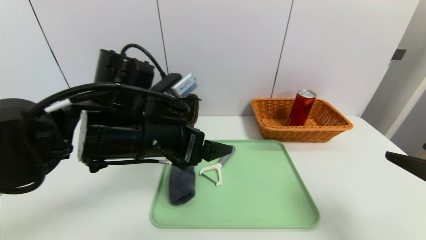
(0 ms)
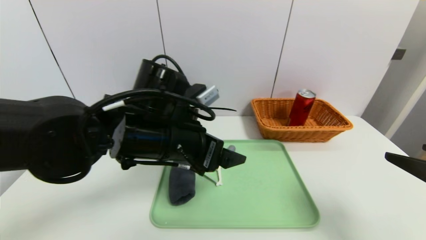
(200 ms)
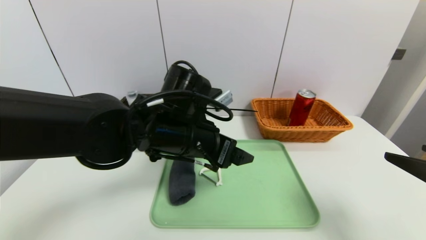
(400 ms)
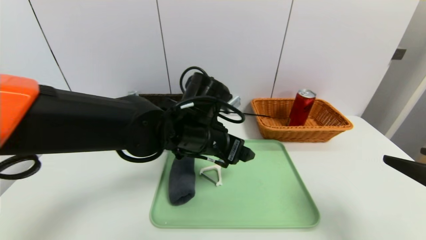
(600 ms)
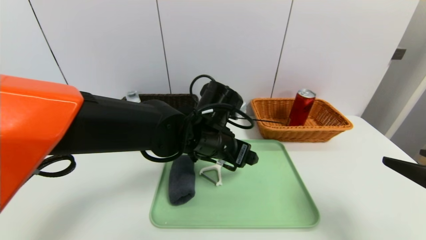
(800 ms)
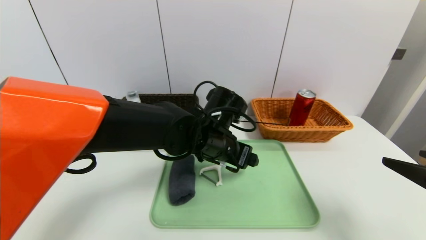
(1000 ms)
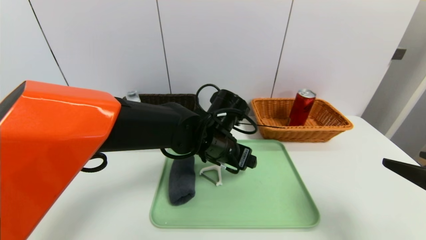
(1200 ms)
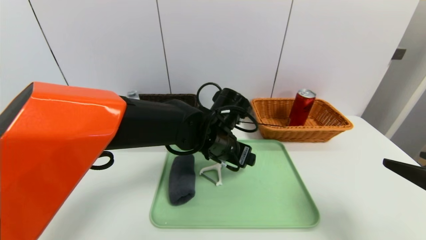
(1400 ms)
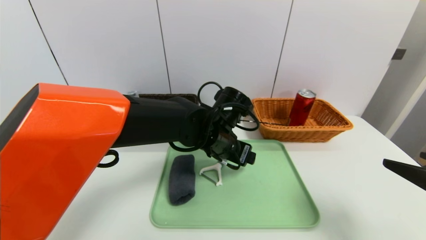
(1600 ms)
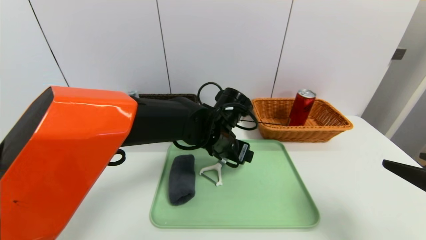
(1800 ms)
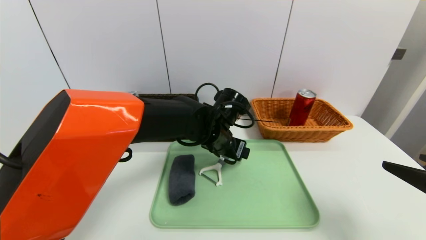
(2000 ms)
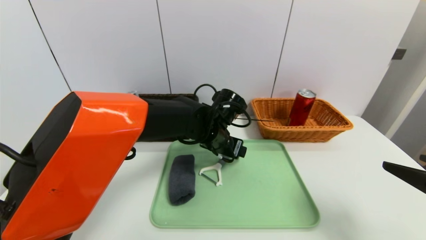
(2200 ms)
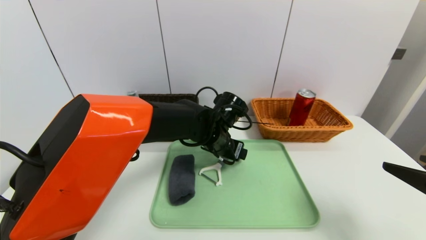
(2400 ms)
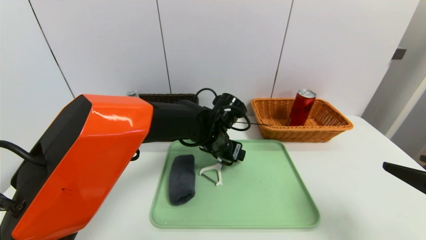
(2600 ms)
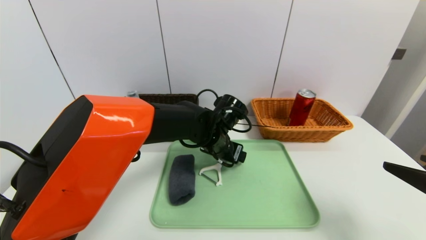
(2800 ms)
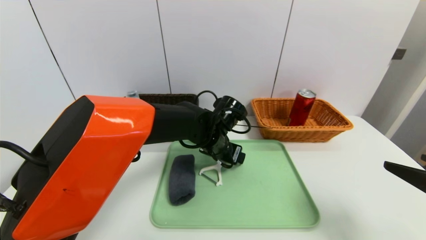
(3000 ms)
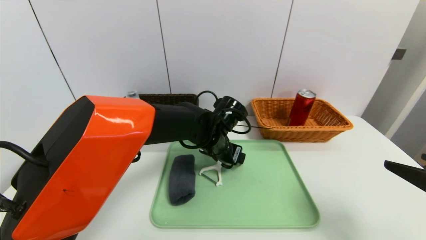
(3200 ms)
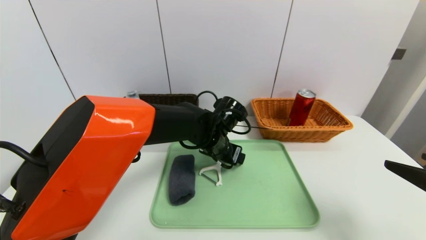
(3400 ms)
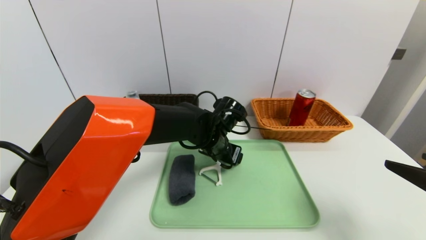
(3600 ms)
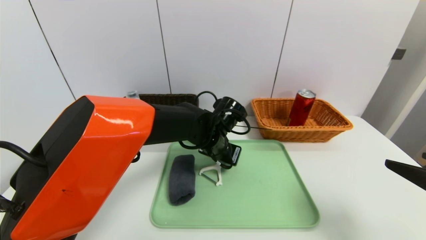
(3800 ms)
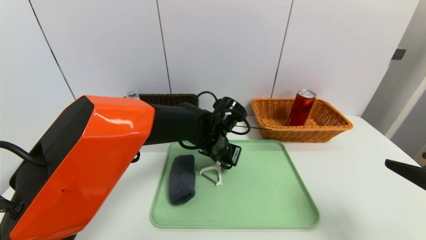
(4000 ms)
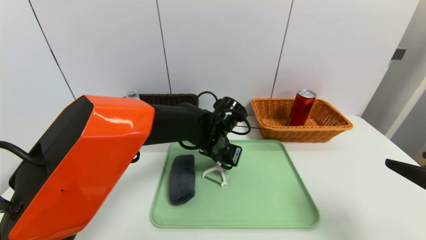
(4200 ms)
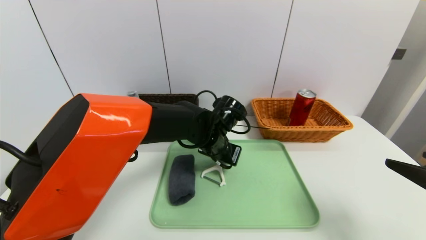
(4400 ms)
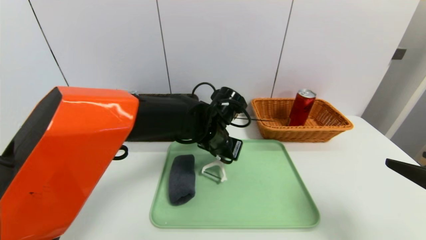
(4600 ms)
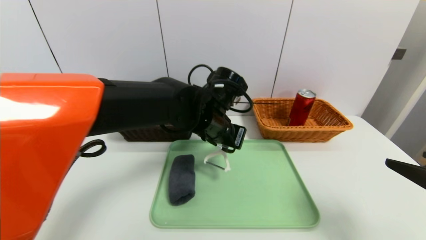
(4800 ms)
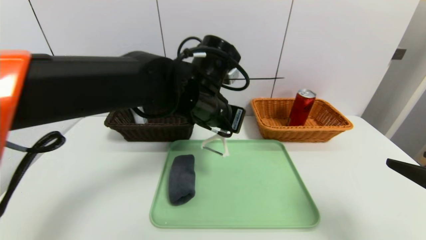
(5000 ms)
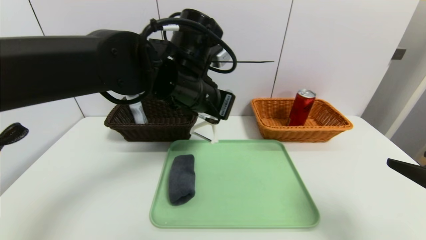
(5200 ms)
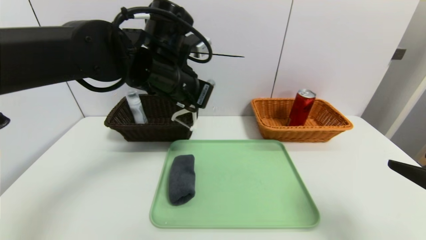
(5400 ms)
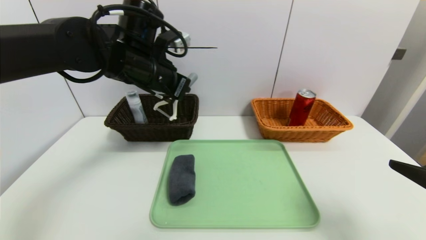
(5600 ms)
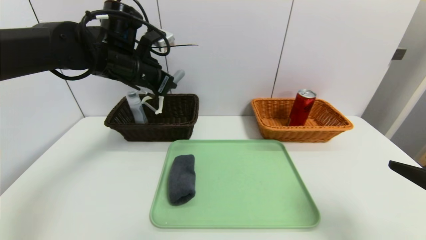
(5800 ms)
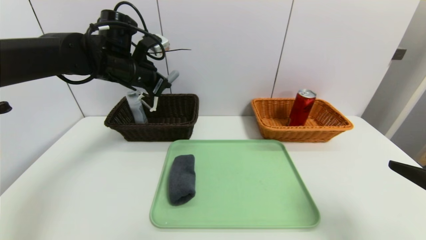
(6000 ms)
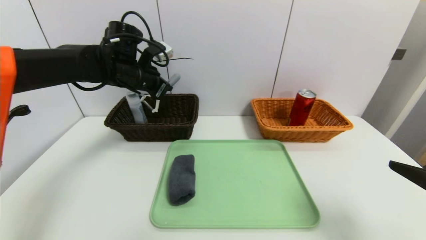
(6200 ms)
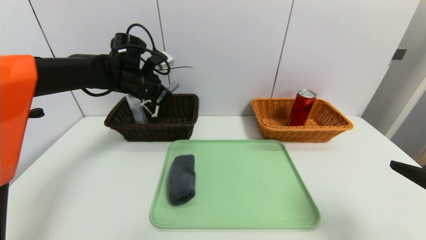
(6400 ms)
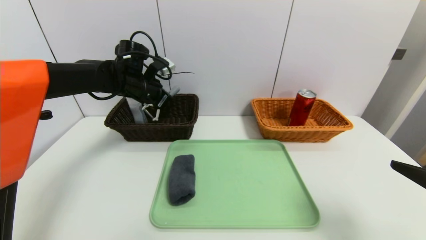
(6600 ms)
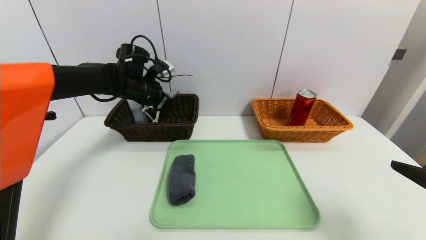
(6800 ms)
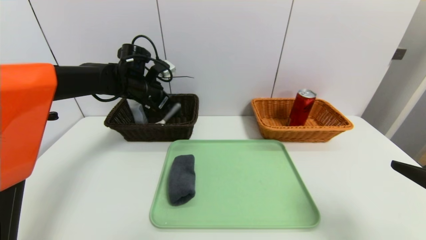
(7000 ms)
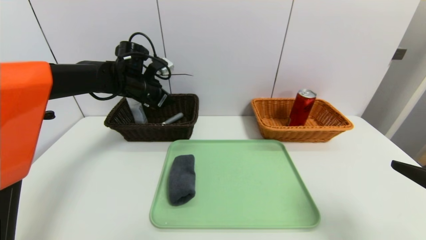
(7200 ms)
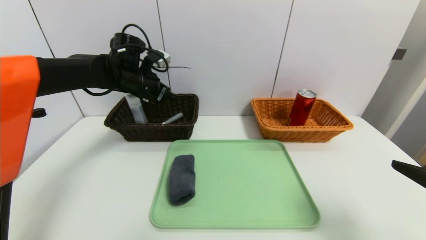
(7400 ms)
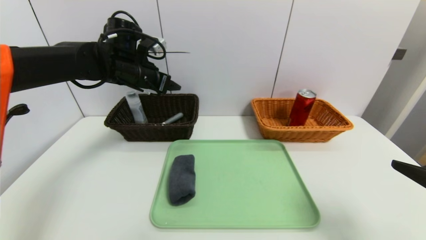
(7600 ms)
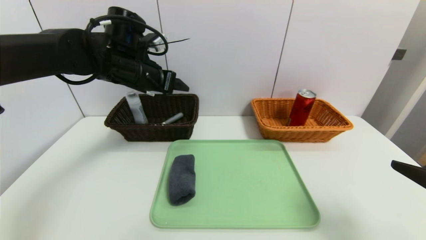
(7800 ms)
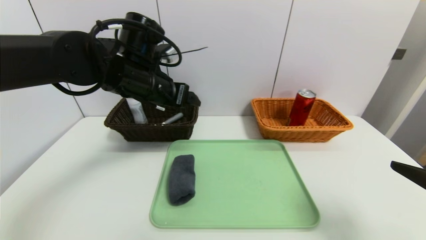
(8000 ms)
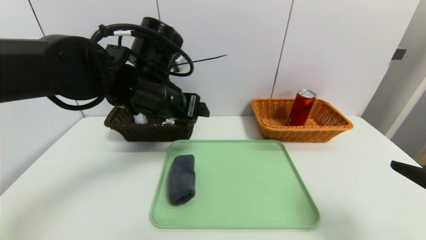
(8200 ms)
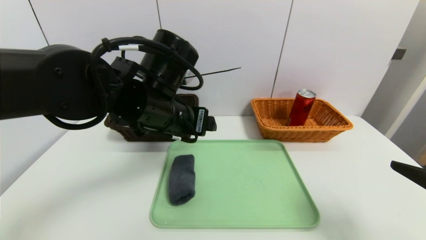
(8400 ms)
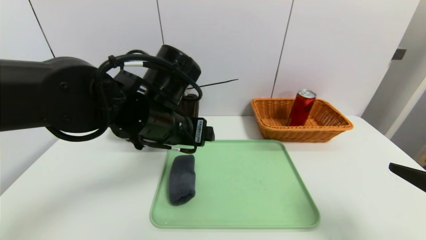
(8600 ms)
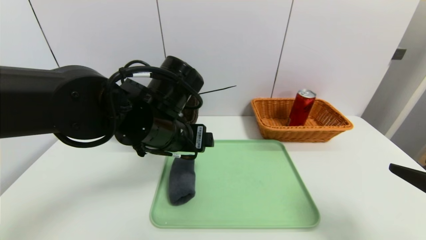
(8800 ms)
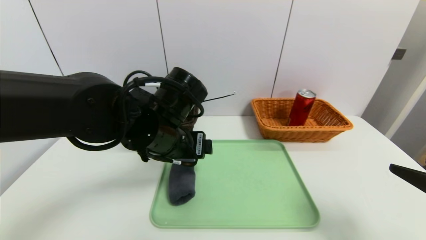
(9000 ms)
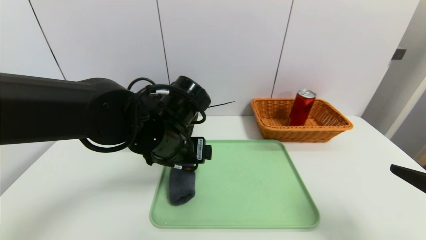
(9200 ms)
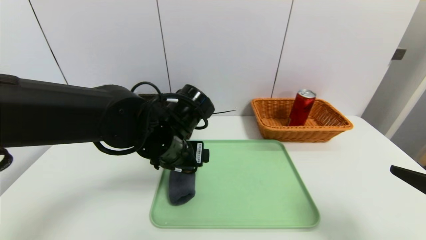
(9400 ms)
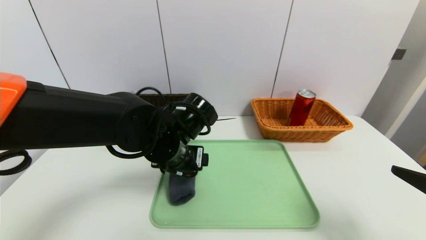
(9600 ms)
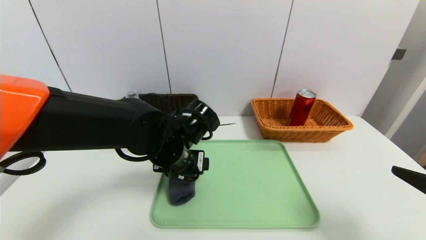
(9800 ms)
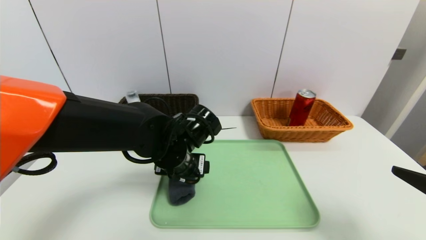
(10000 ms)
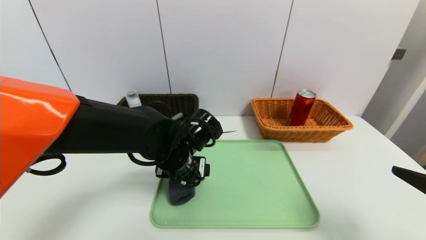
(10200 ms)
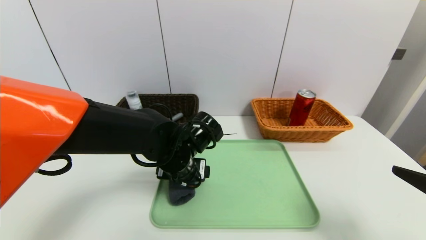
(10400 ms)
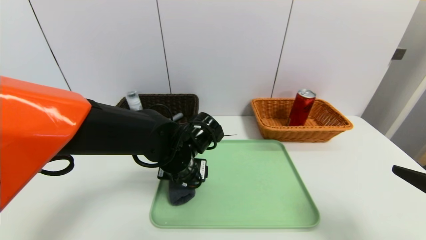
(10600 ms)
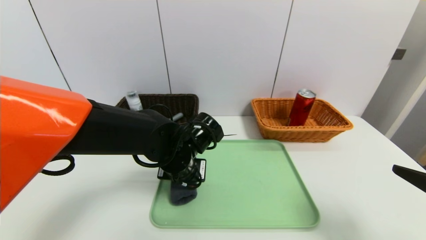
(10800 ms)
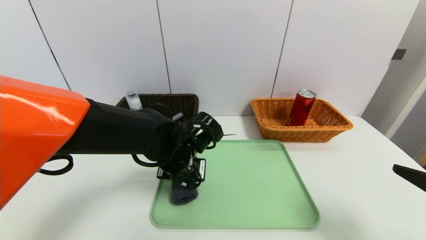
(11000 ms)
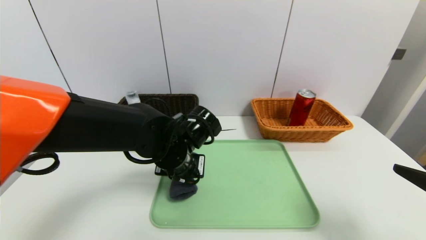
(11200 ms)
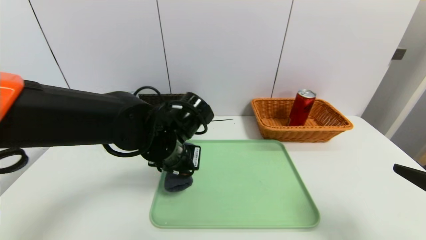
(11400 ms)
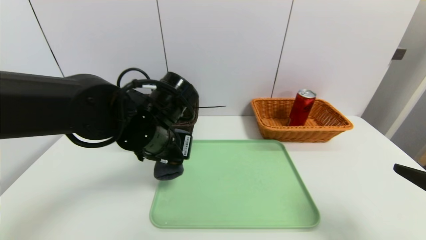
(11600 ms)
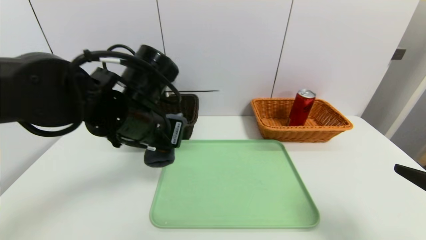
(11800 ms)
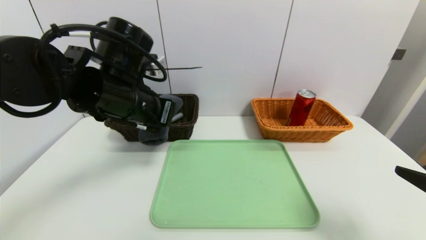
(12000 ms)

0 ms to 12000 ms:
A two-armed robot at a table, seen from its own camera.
Task of the whole recording: place the food in the right basket with the right gripper, and place the non food items in the left basket with the left gripper.
Step, 0 ms to 7400 ms: Grasp the peeler and put it in the left basket.
0 ms to 1600 ms: The left gripper travels to the right, forward and downward by roughly 15 cm.
1600 ms to 3000 ms: The grippers move only a little.
3000 ms to 4400 ms: The left gripper closes.
4400 ms to 6000 ms: The left gripper goes about 25 cm to the left and upward.
6000 ms to 7600 ms: The left gripper opens its fingers.
7600 ms to 9000 ms: The left gripper is displaced backward, to the right and downward by some 20 cm.
9000 ms to 10400 ms: The left gripper travels downward by roughly 10 cm.
10400 ms to 12000 ms: The left gripper heads upward and to the left, covering about 15 cm, and closes its fingers.

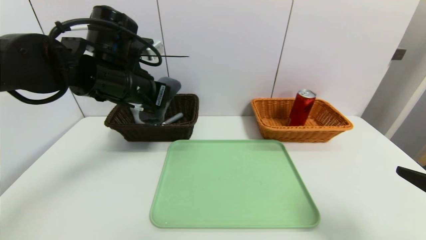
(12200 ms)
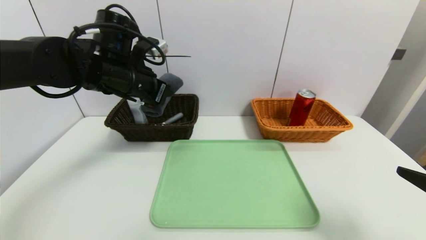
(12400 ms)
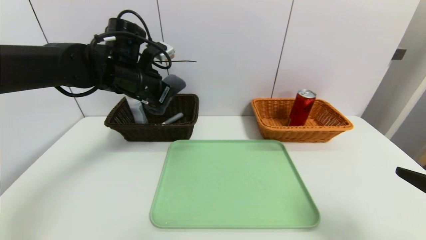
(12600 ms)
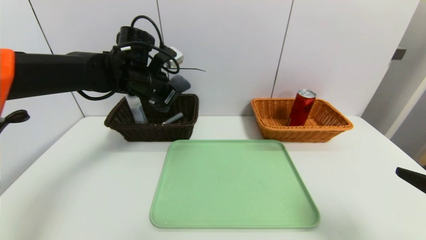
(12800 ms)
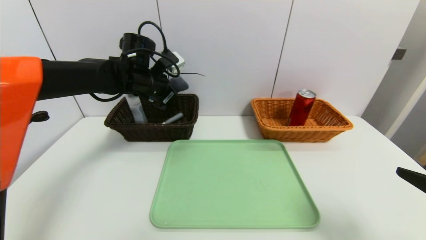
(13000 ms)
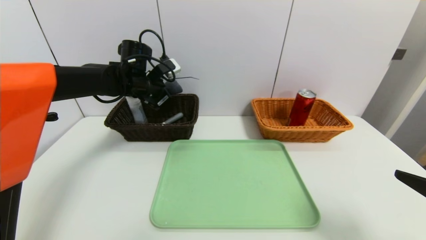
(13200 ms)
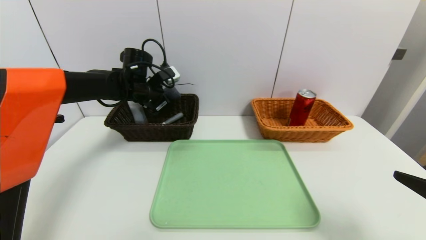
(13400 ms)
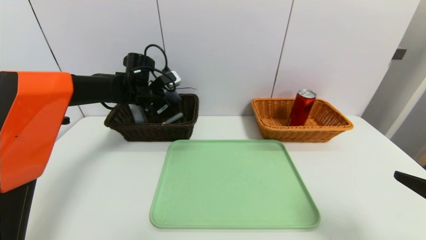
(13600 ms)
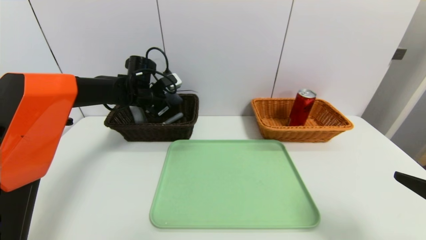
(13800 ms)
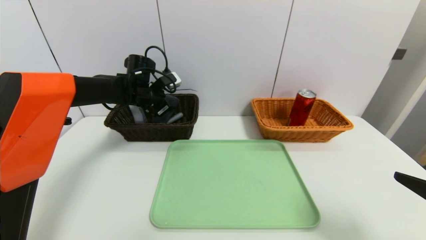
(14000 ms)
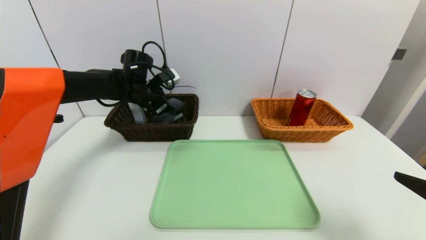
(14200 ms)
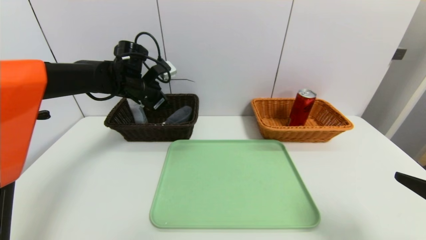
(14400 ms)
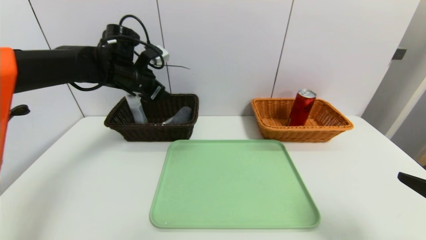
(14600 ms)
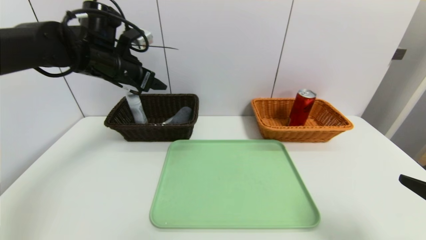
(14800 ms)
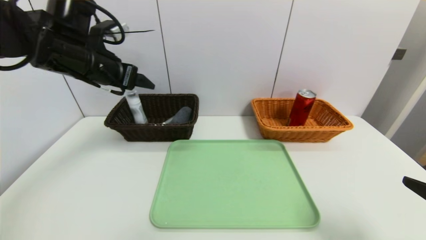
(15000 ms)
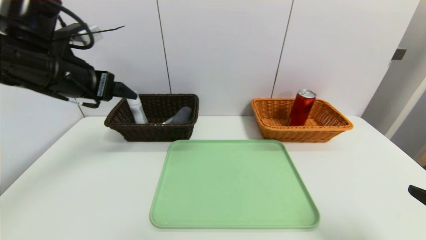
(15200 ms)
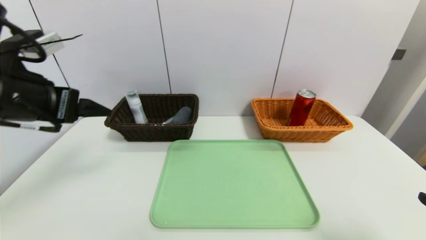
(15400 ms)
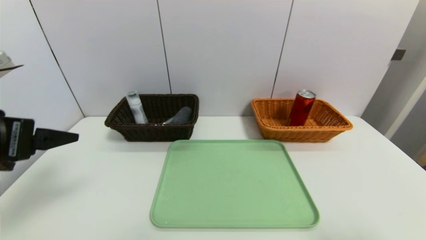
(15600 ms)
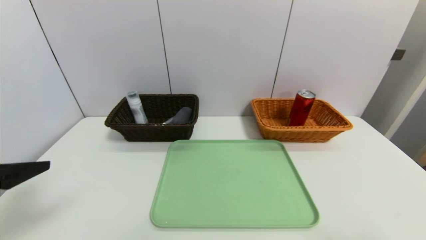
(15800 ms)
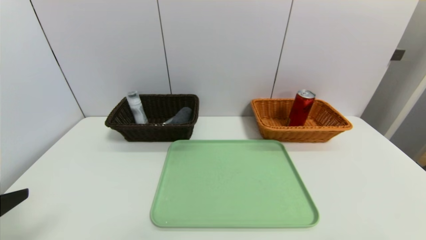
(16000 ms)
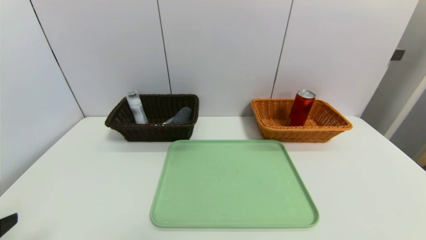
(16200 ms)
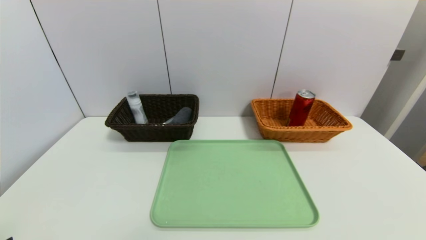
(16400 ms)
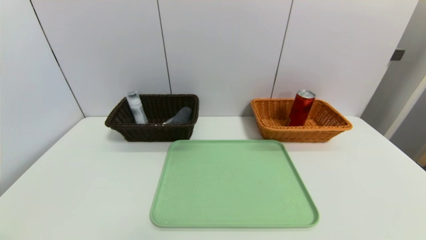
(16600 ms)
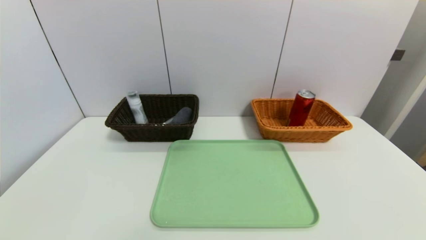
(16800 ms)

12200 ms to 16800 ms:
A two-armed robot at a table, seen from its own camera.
Task of the whole recording: place the food in the right basket with the right gripper, and place the non food items in the left basket with the left gripper.
Step, 12200 ms to 14400 ms: Grasp the grey towel and put it in the left basket.
12200 ms to 13800 ms: The left gripper is displaced forward and downward by some 20 cm.
13800 ms to 15200 ms: The left gripper moves backward and upward, roughly 25 cm, and opens.
15200 ms to 16800 ms: The left gripper shifts some 30 cm backward and downward; the right gripper is displaced backward by some 10 cm.
